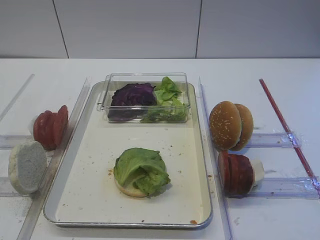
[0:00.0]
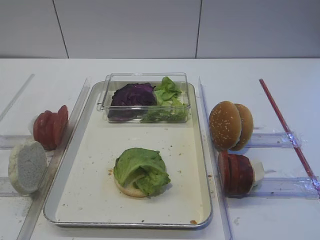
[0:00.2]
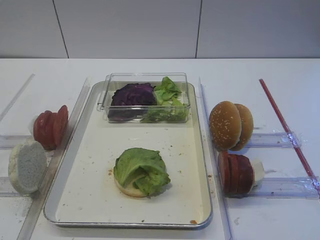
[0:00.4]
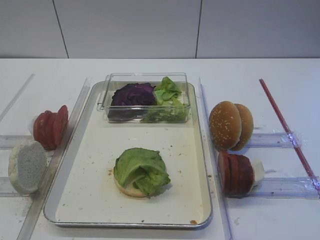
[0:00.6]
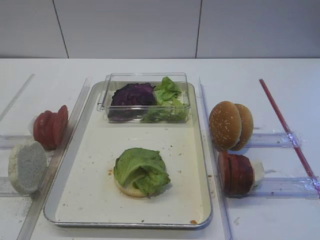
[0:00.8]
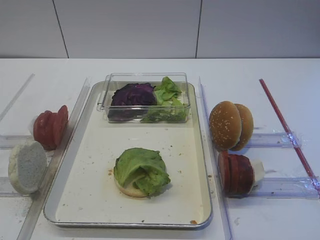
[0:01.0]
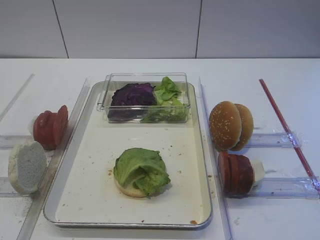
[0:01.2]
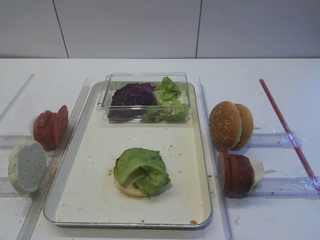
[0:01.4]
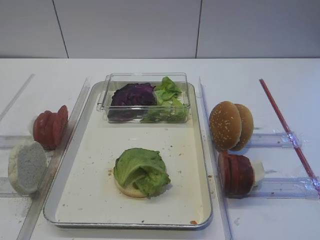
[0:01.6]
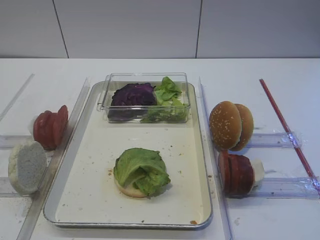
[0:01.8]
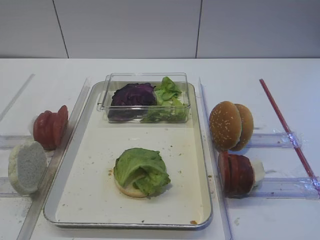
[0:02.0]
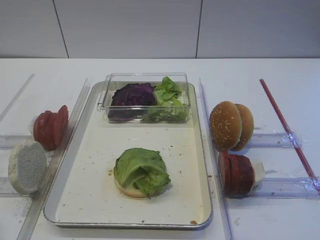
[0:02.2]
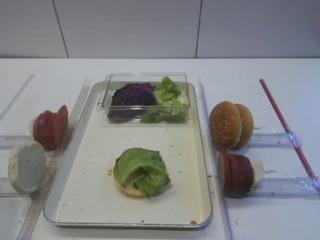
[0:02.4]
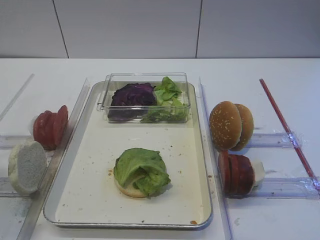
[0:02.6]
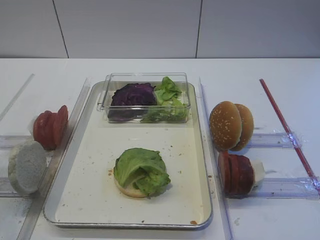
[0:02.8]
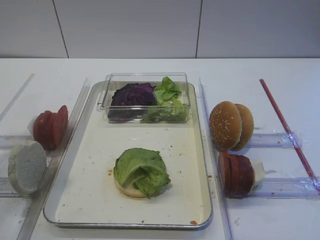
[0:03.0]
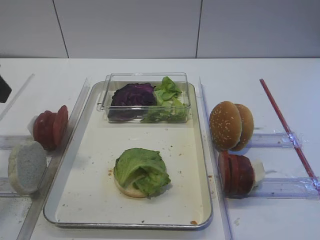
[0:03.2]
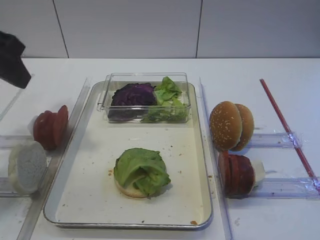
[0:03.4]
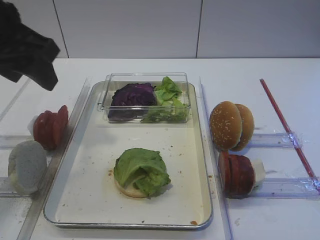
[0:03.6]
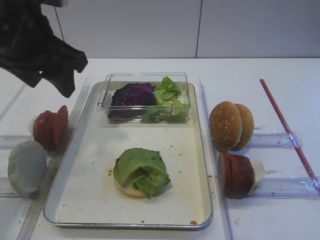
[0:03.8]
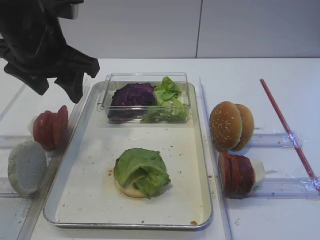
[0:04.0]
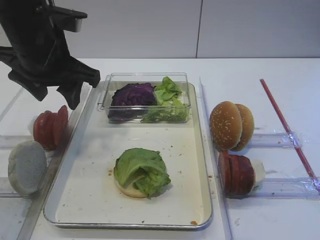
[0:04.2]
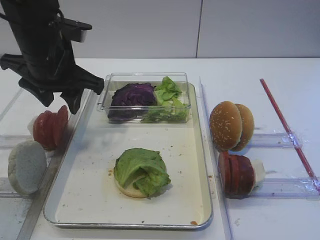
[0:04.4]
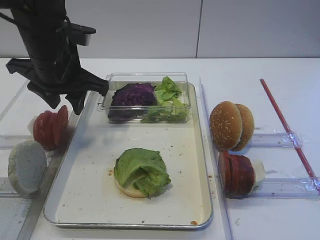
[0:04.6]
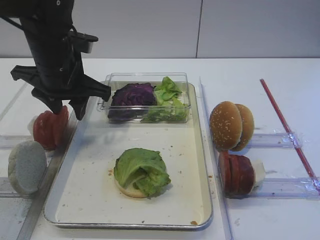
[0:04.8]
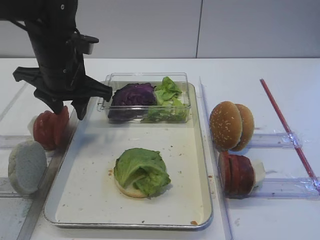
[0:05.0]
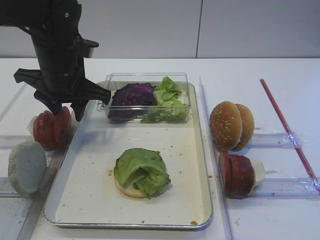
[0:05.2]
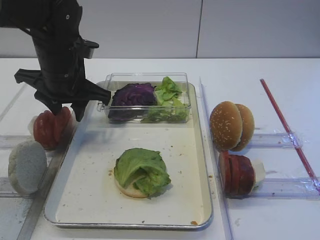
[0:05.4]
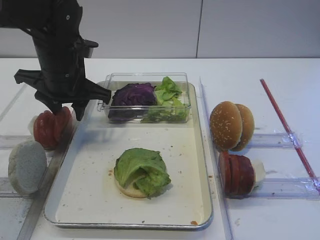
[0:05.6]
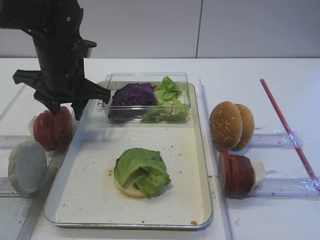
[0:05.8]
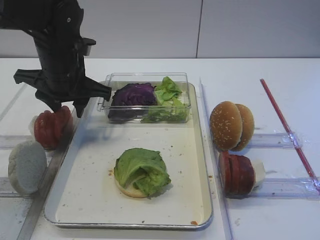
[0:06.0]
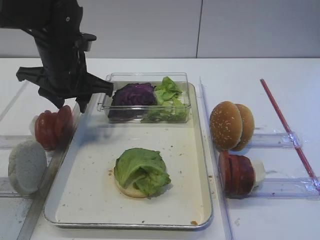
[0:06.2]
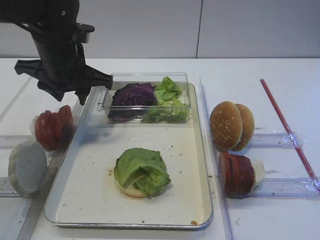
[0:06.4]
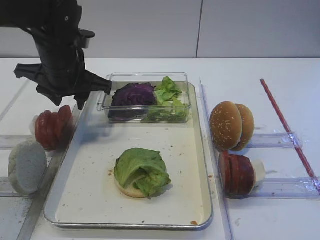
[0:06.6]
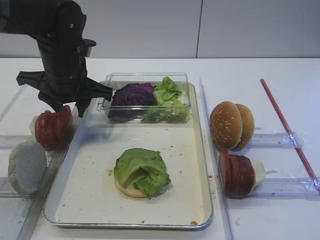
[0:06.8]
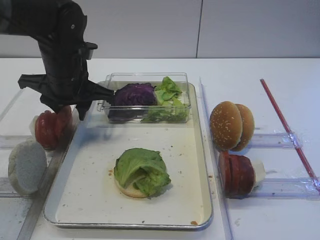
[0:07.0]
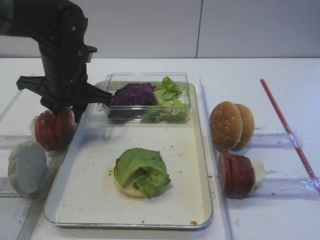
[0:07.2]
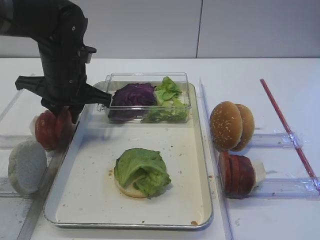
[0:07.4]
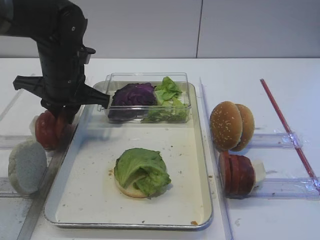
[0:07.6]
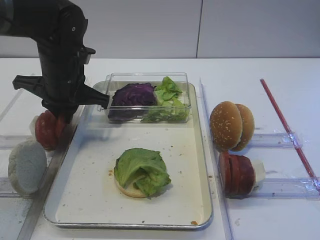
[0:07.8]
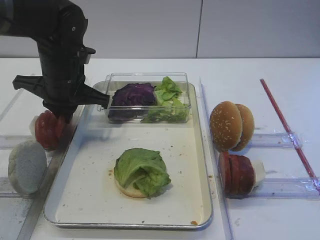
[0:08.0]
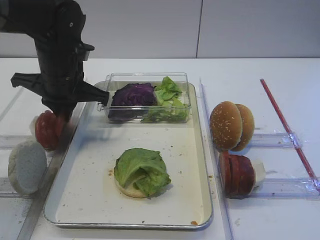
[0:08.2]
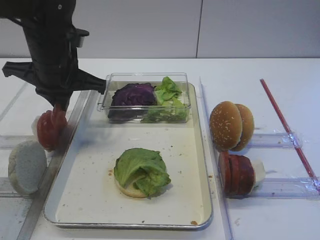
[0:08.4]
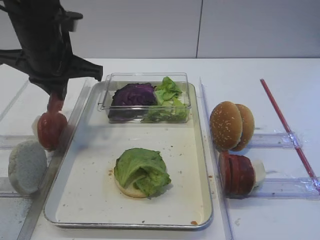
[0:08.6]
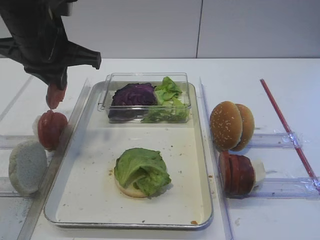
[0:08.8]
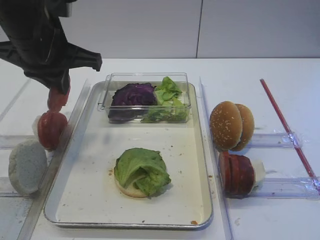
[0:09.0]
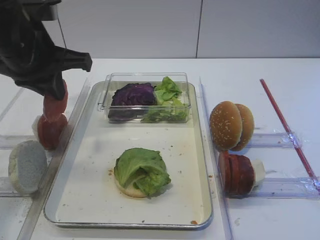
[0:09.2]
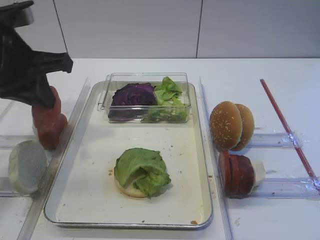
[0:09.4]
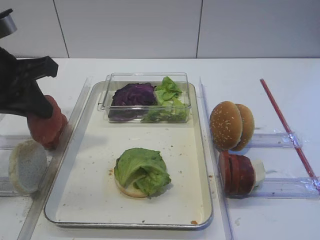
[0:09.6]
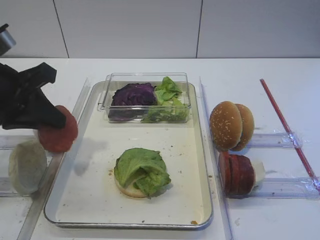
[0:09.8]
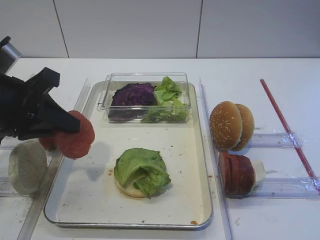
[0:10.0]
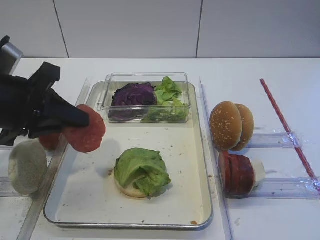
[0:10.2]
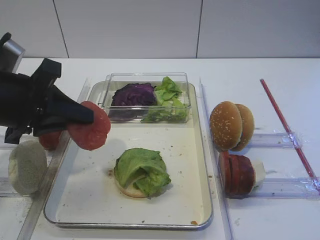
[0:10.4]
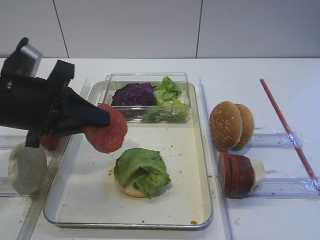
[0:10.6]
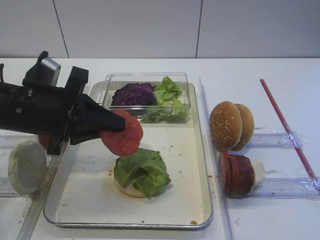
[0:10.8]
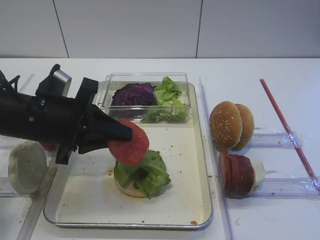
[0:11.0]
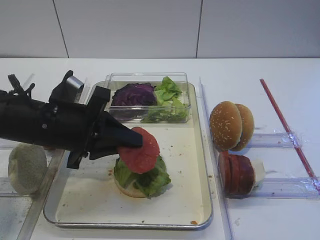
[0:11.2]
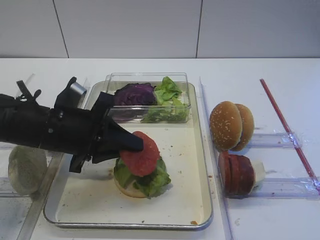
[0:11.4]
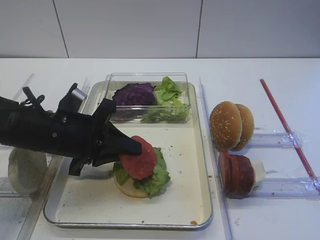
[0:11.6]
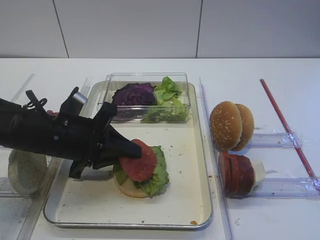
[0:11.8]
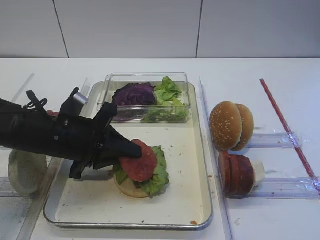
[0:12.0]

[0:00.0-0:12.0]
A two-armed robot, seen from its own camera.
Step, 0:00.0 to 0:08.6: Pick up the tomato slice with the left gripper.
0:01.6 to 0:03.0: The left gripper travels forward and upward by some 20 cm.
0:03.0 to 0:04.4: The left gripper moves forward and to the right, roughly 20 cm.
0:04.4 to 0:06.0: The left gripper changes place by some 5 cm.
0:06.0 to 0:07.6: The left gripper closes its fingers.
0:07.6 to 0:09.0: The left gripper moves upward, some 10 cm.
0:09.0 to 0:10.4: The left gripper is displaced backward and downward by approximately 10 cm.
0:10.4 to 0:12.0: The left gripper is displaced downward and to the right by about 10 cm.

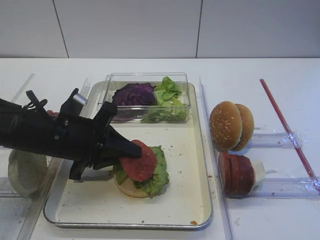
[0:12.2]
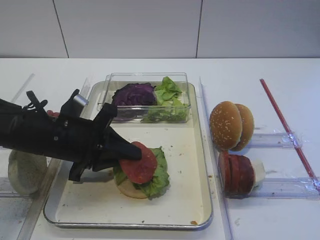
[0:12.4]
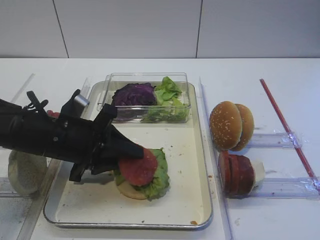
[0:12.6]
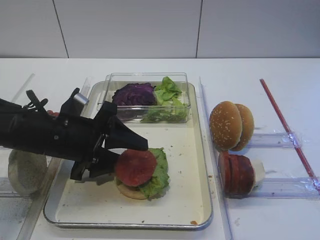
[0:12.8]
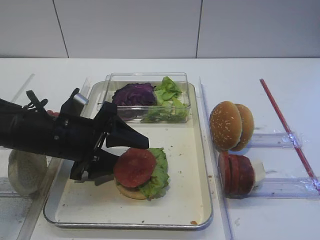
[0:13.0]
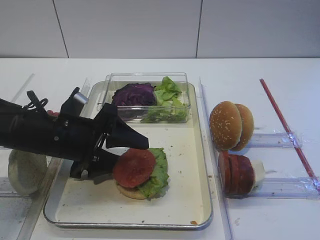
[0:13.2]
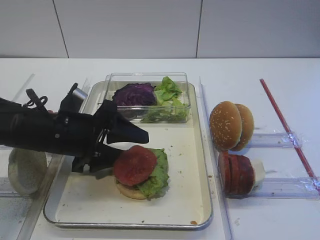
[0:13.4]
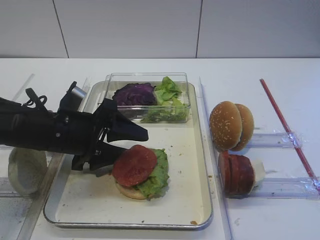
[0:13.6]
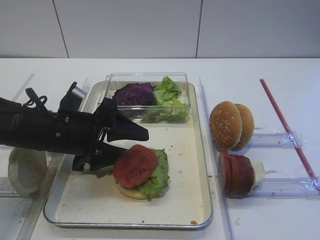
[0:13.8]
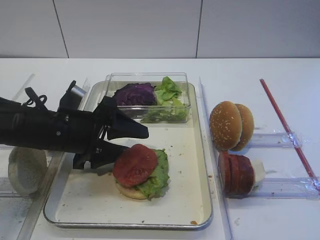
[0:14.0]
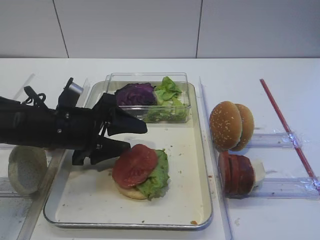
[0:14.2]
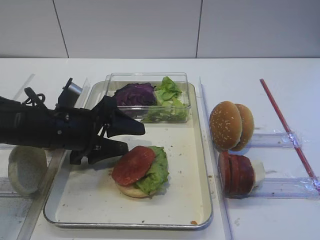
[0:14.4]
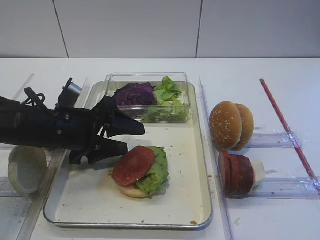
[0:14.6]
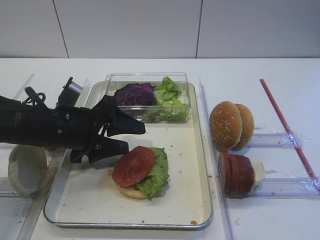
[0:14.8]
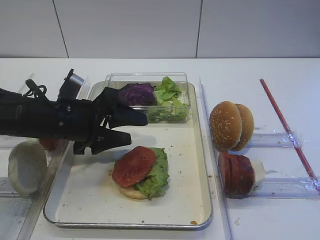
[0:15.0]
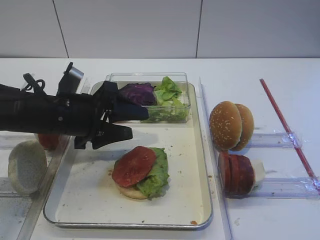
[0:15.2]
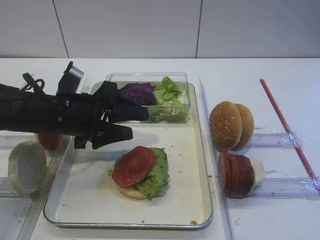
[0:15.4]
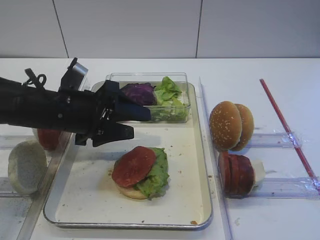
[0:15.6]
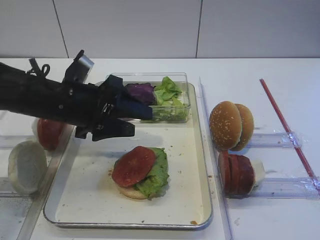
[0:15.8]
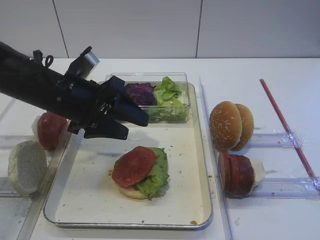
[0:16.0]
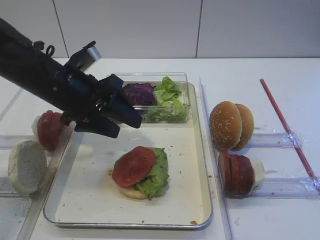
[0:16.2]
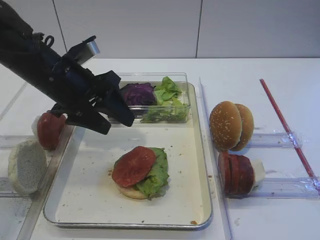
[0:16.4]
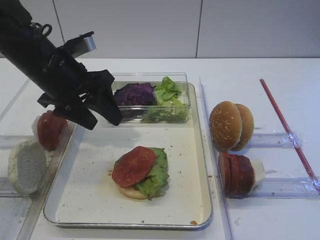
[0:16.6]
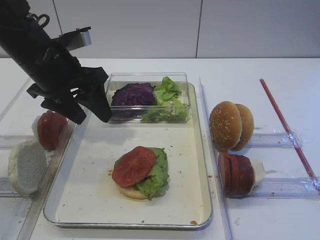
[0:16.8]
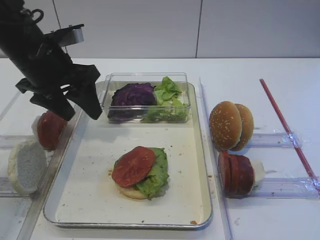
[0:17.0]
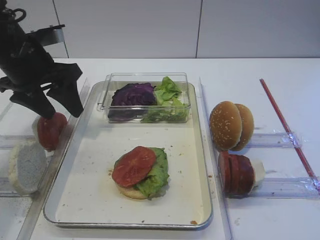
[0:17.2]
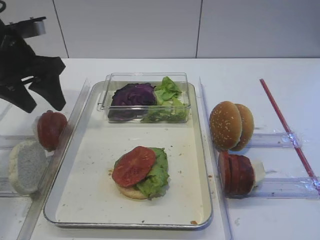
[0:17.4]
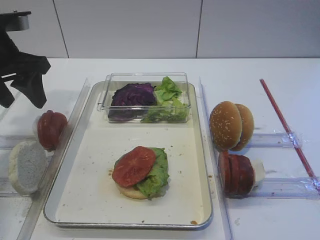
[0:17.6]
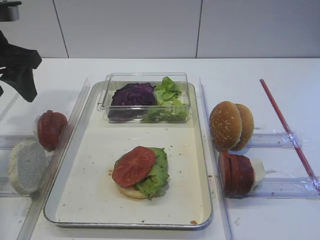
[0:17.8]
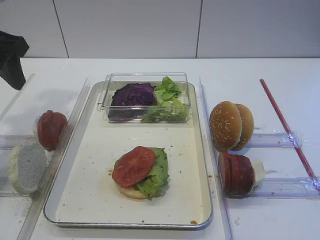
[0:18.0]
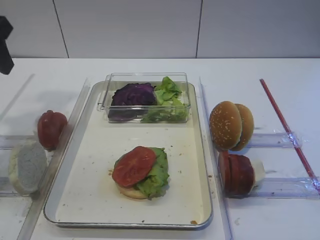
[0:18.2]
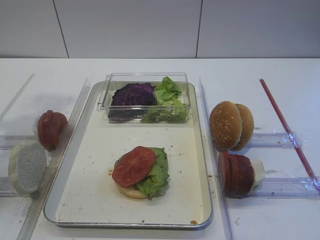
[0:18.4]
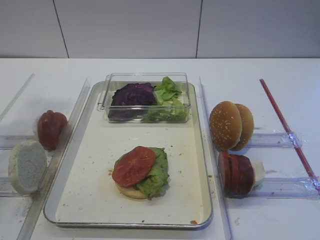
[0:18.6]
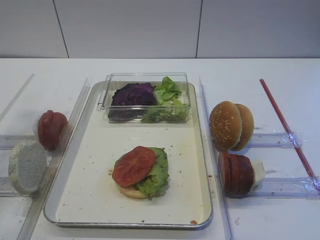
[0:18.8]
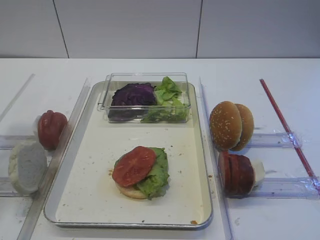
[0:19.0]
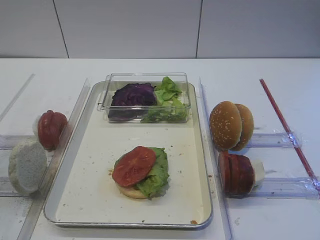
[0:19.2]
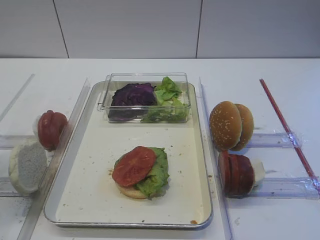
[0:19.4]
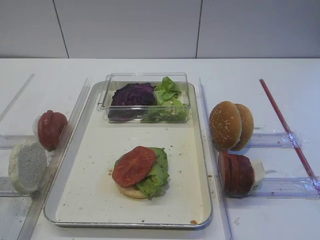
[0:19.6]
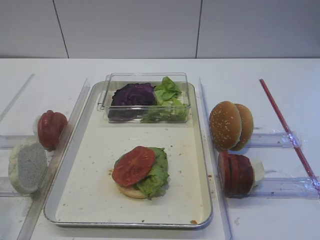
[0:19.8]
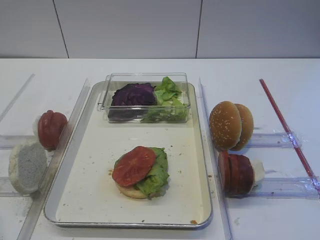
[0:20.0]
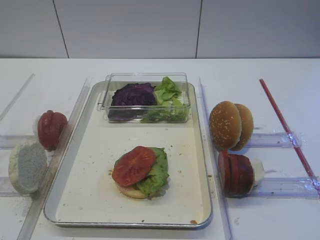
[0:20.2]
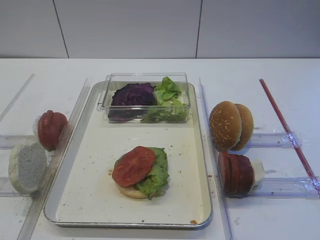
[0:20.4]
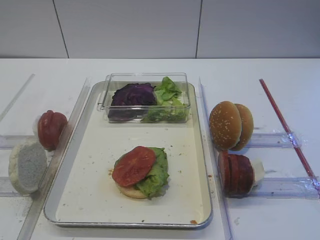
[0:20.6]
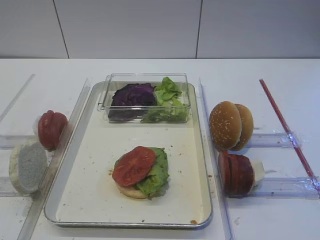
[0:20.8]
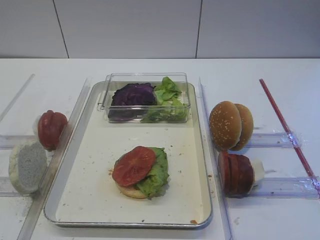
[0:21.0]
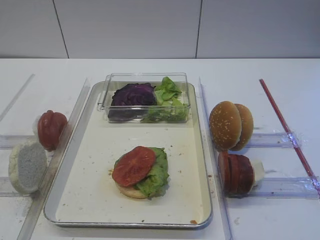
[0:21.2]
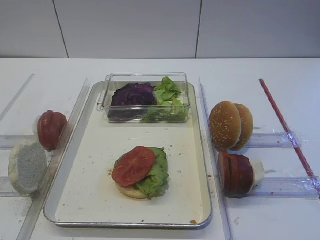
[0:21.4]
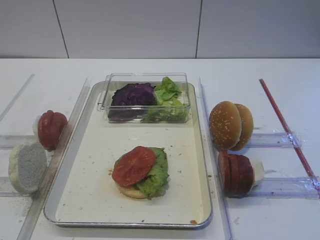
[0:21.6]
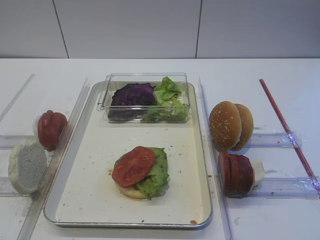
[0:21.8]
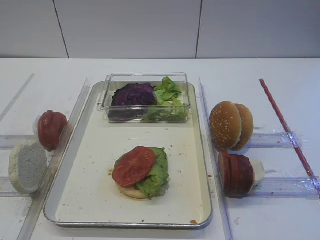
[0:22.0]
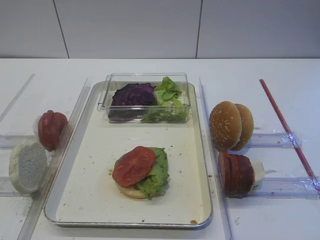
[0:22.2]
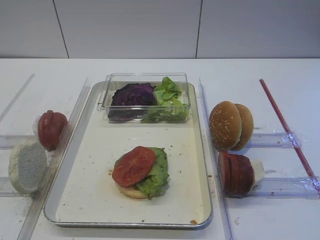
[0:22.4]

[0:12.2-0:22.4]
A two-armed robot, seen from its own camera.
Step, 0:12.2 to 0:14.8: Place the tomato slice on the lettuce leaf with the left gripper.
0:12.2 to 0:13.6: The left gripper opens up.
0:13.6 to 0:15.2: The grippers move only a little.
0:15.2 to 0:16.6: The left gripper travels upward by approximately 5 cm.
0:16.6 to 0:18.0: The left gripper heads to the left and upward, covering some 15 cm.
0:18.0 to 0:19.4: The left gripper is displaced backward by approximately 20 cm.
0:19.4 to 0:21.0: The left gripper moves downward and backward, roughly 15 cm.
0:21.0 to 0:22.4: Neither gripper changes place.
